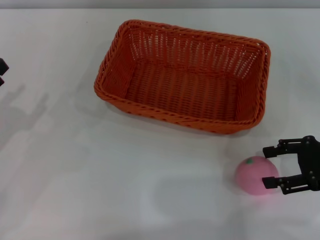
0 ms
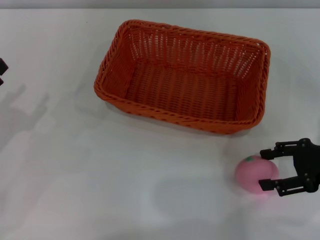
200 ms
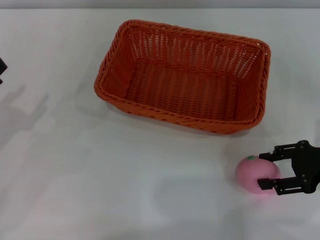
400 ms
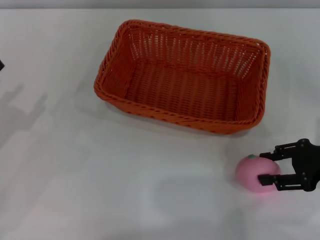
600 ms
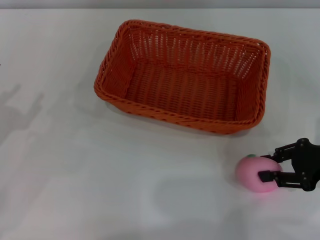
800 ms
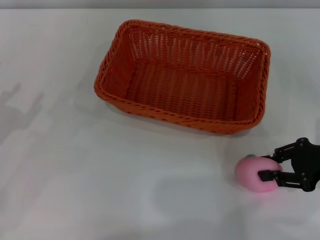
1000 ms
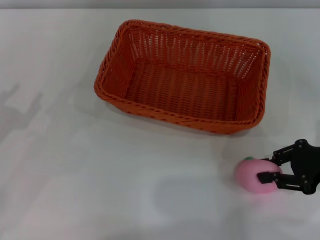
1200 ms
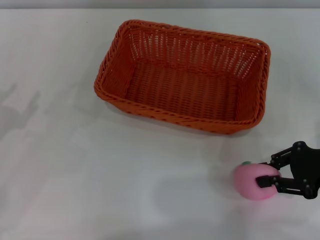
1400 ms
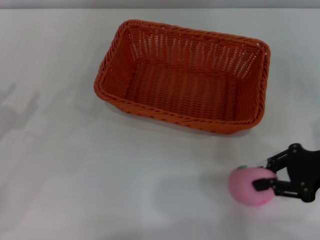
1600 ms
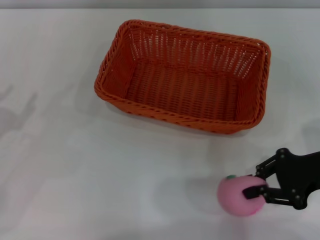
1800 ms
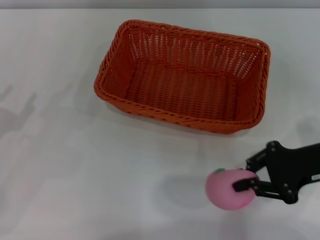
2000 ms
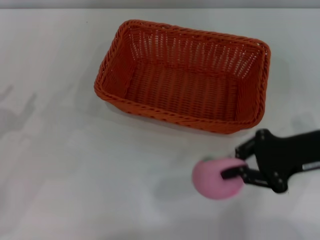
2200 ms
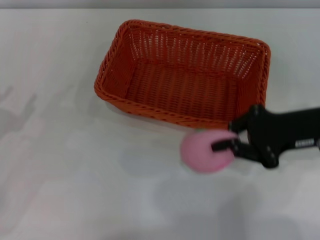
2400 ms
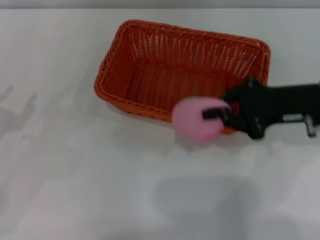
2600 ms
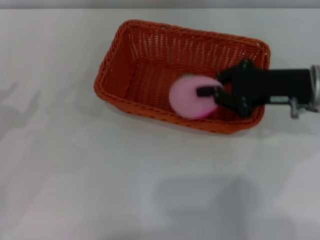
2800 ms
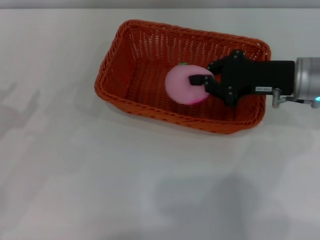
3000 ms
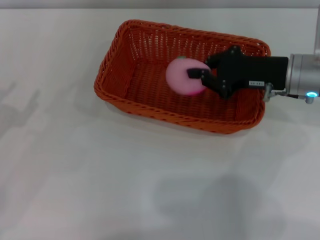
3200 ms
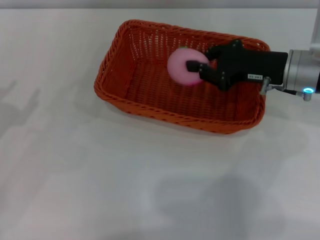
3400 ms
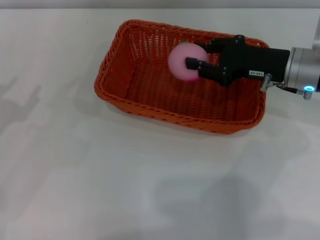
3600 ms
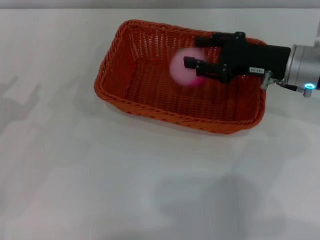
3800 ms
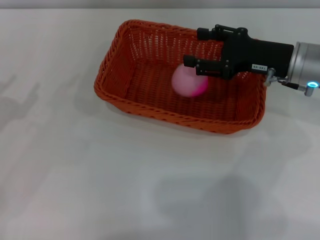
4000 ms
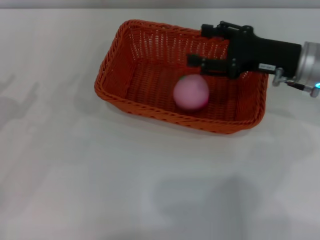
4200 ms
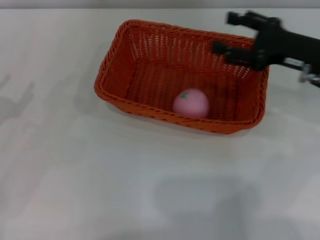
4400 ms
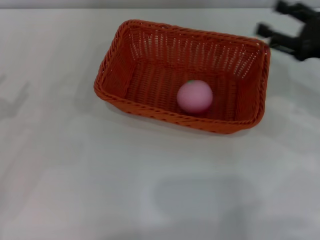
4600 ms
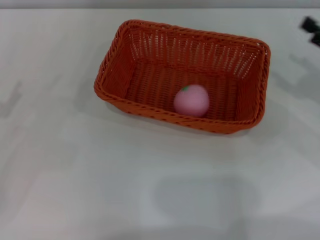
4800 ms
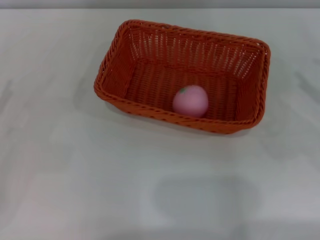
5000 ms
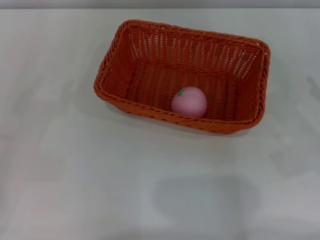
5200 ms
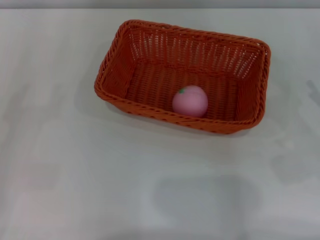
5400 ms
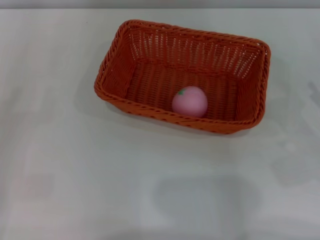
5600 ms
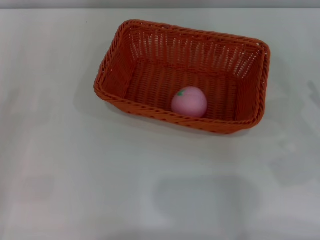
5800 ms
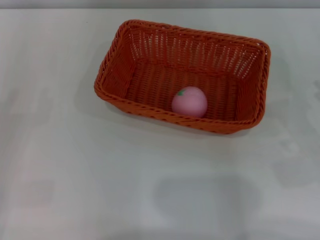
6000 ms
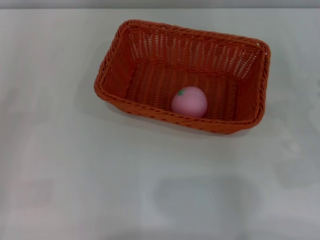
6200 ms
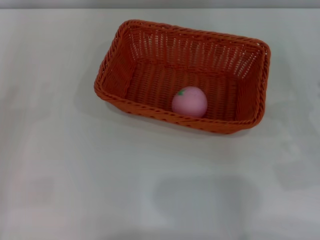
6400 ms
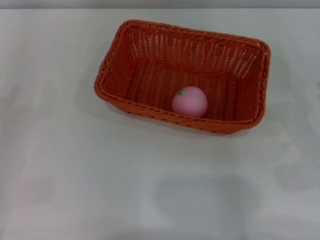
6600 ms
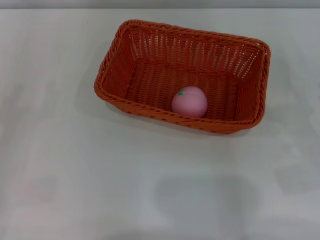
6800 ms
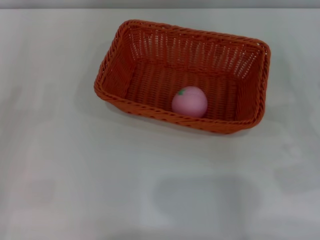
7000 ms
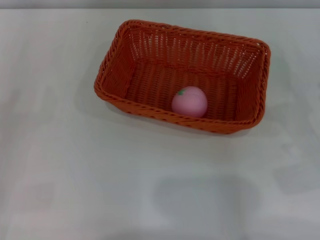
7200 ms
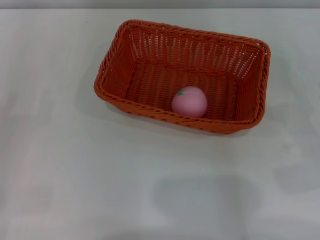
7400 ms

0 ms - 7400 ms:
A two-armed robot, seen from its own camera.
Step, 0 ms - 2200 ms: Pick up the peach with the left gripper.
Step, 2400 ms - 3800 ms: Place the peach into the basket with the left gripper.
0 ms - 1400 ms: The right gripper closes up.
1400 ms - 3000 ms: The right gripper goes some 15 cm forward and to the left.
3000 ms - 4400 ms: The right gripper opens.
4400 ms - 6000 ms: The right gripper shifts some 15 cm backward, to the right and downward.

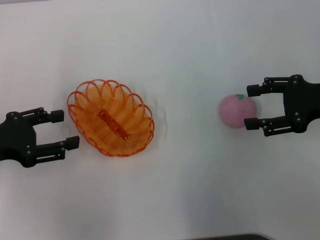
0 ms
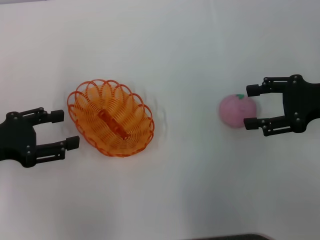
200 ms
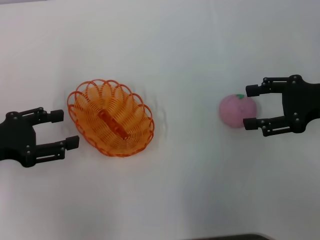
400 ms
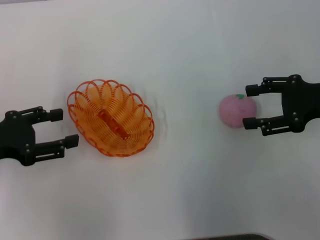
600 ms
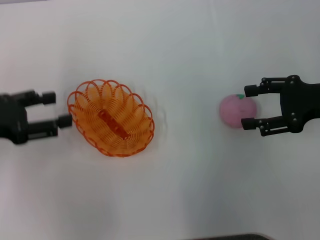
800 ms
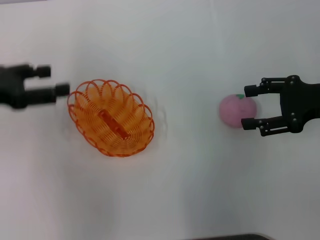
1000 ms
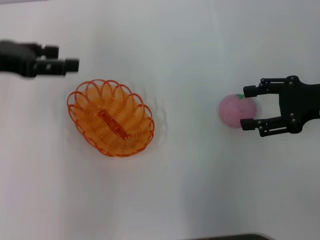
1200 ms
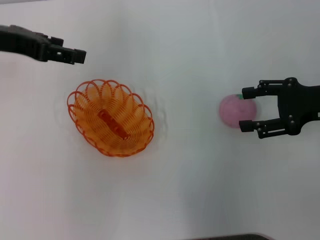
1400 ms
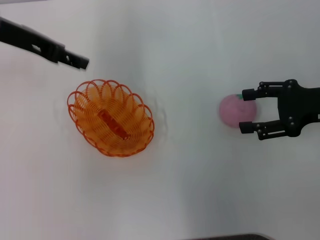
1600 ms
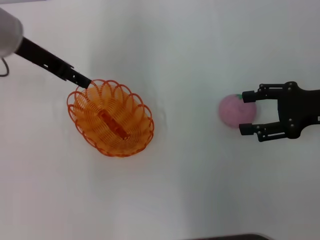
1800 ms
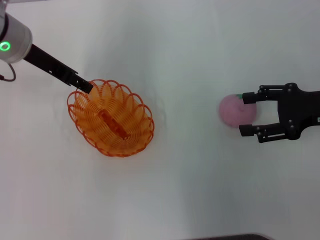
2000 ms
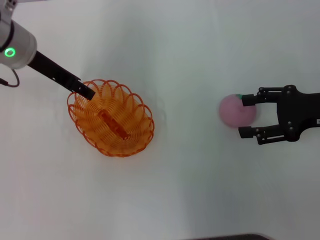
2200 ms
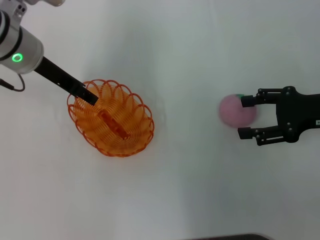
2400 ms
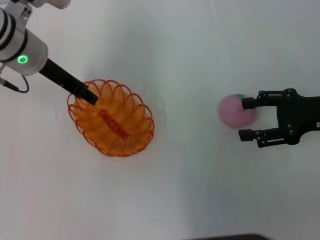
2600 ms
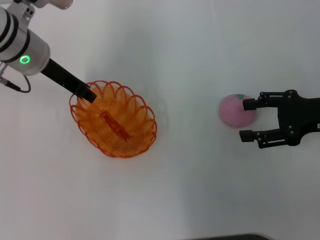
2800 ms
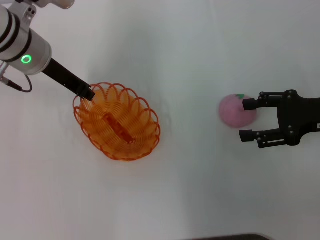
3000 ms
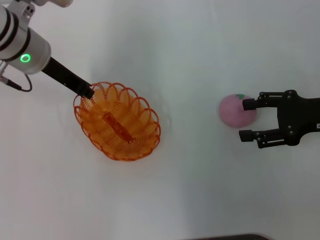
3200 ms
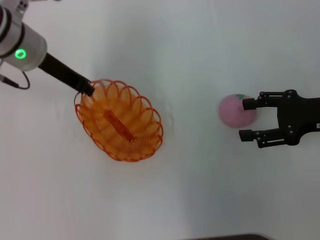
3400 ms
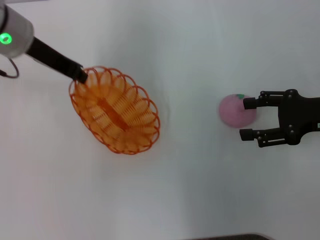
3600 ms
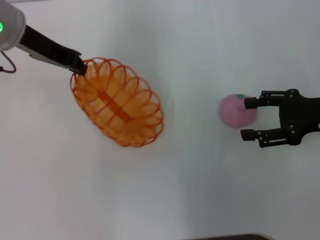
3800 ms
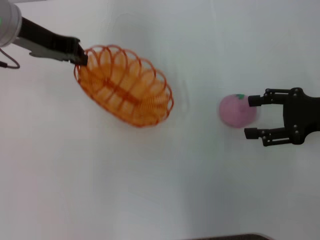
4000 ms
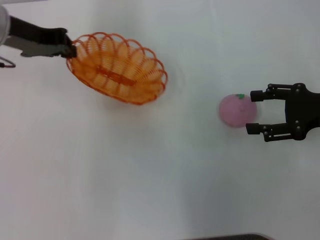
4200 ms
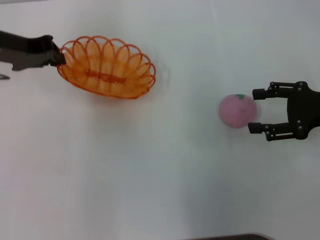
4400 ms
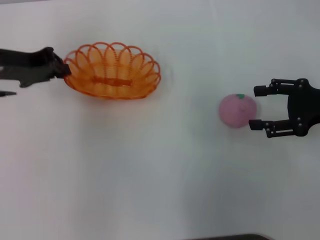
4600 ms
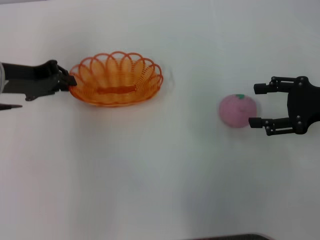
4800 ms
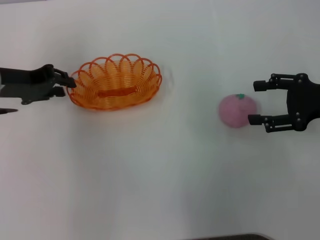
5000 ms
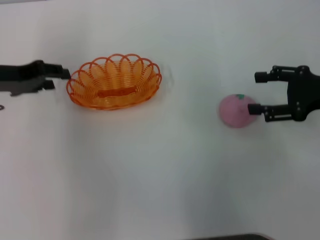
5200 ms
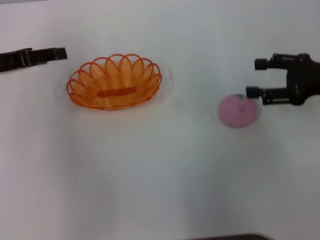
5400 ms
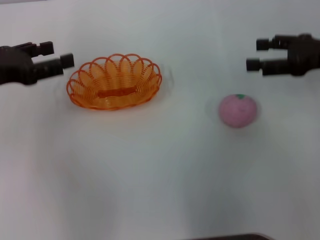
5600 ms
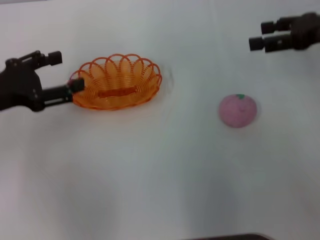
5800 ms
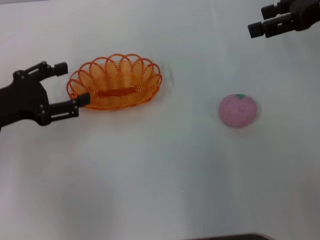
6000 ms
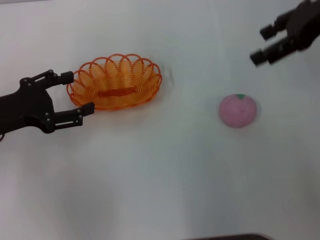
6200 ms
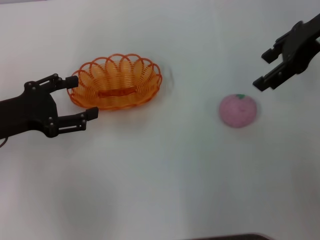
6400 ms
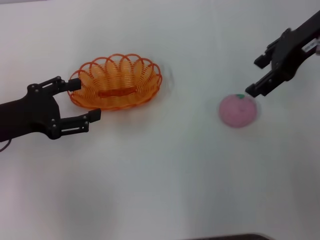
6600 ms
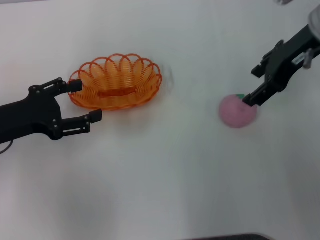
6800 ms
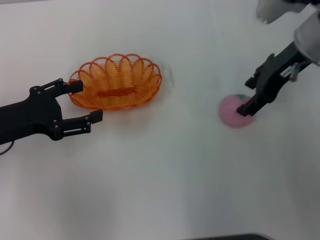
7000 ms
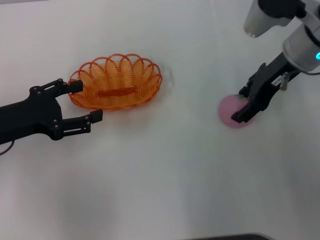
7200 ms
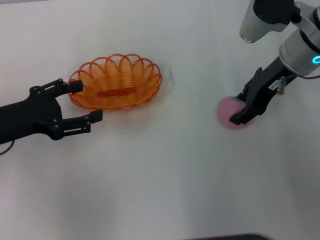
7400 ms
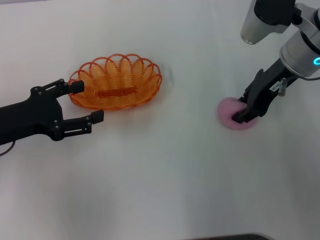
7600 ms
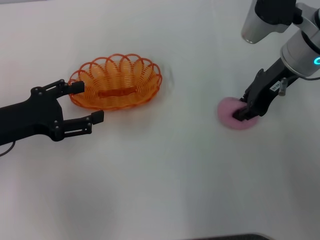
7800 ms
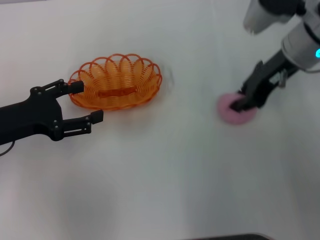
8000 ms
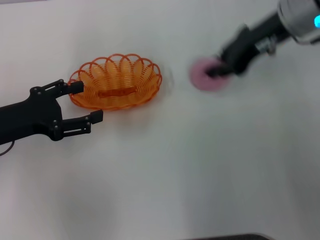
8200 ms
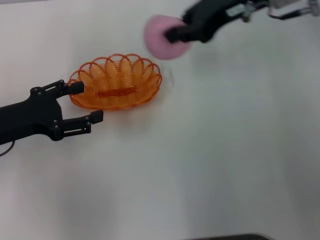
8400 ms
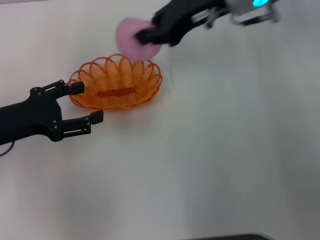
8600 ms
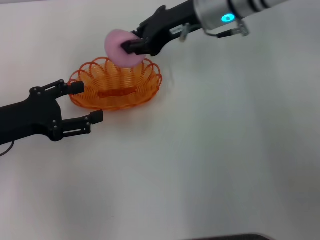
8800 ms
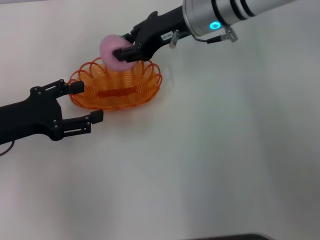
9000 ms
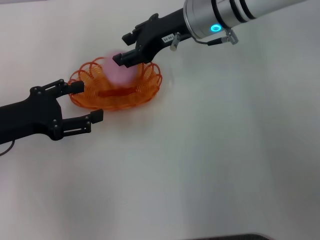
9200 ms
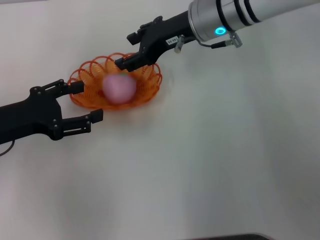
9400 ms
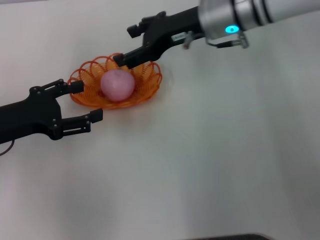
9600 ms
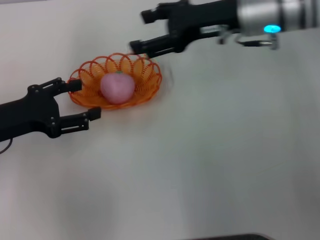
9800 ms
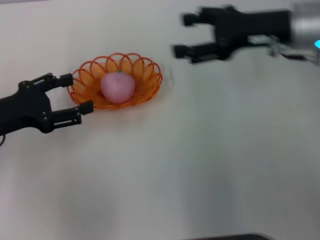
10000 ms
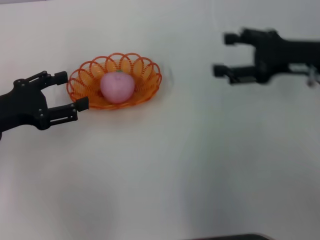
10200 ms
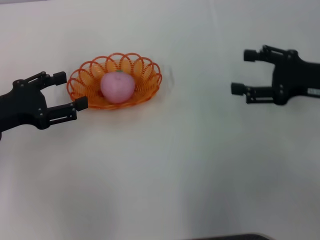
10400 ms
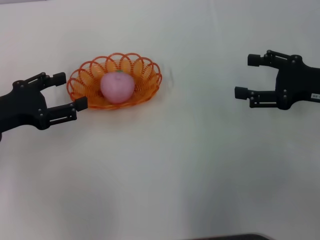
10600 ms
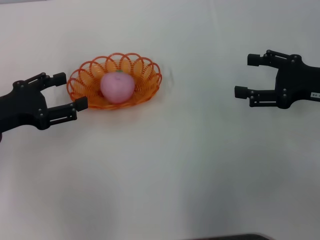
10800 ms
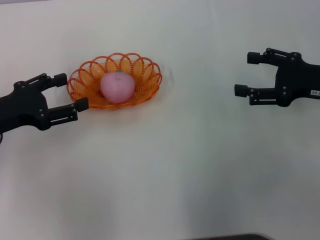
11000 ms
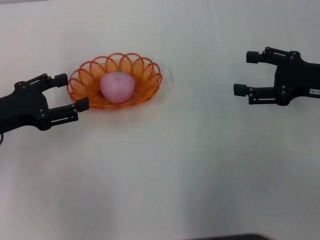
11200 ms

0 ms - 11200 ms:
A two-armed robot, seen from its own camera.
Step, 0 ms - 3400 ms: Pick up the basket with the left gripper.
Step, 3600 ms - 5200 ms: Place the basket in the center of view with the left gripper.
Step, 5400 ms - 8000 ms: Pick up the peach with the right gripper.
Step, 8200 ms - 9600 ms: Place the peach into the basket with the right gripper.
0 ms - 1600 ms: The left gripper moves forward, upward and to the right, approximately 20 cm.
1600 ms - 3200 ms: The left gripper travels downward by about 5 cm, and closes.
3200 ms - 4800 ms: The left gripper moves to the left, approximately 5 cm, and goes upward and returns, approximately 5 cm each way.
4800 ms - 6400 ms: The left gripper shifts about 10 cm backward, and opens up. The right gripper moves upward, forward and to the left, some 20 cm.
6400 ms - 8000 ms: The right gripper goes some 10 cm downward, and closes up.
8000 ms - 9600 ms: The right gripper shifts approximately 10 cm to the left, and opens.
9600 ms - 11200 ms: The right gripper is displaced to the right and backward by about 20 cm.

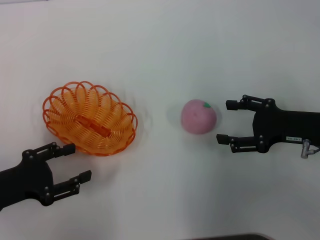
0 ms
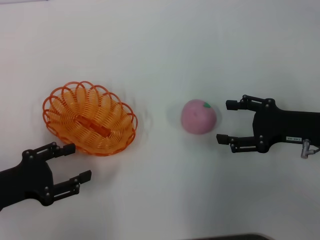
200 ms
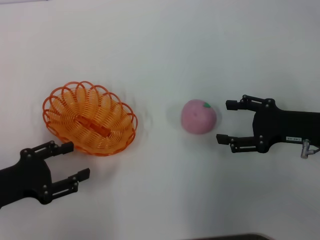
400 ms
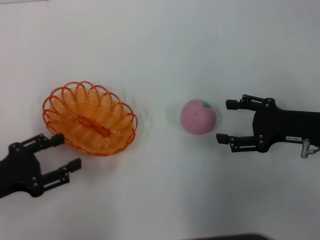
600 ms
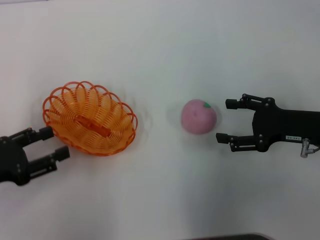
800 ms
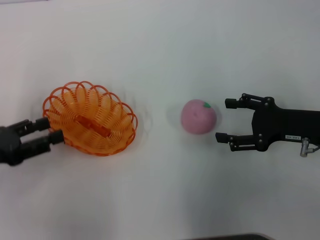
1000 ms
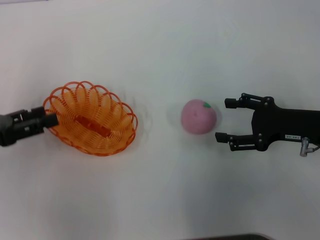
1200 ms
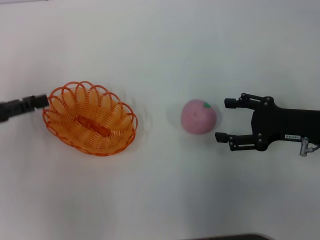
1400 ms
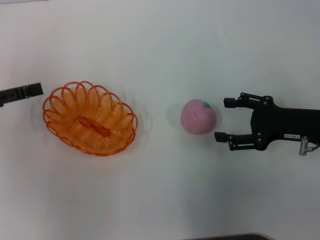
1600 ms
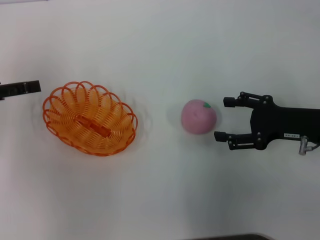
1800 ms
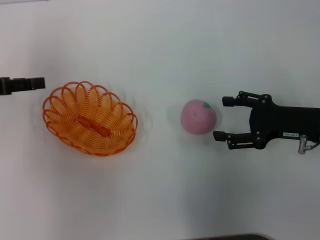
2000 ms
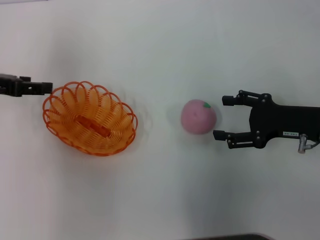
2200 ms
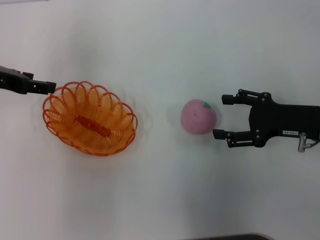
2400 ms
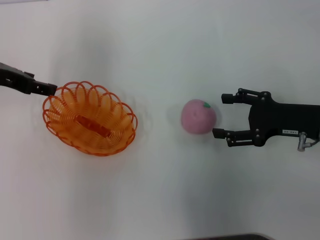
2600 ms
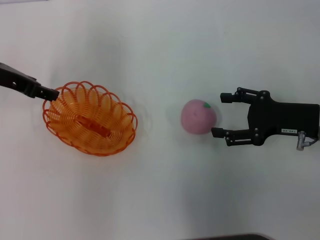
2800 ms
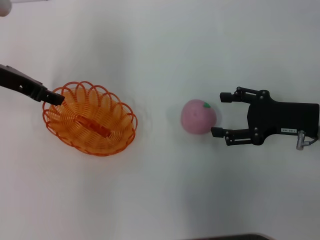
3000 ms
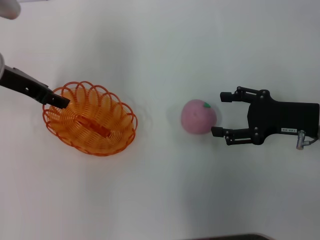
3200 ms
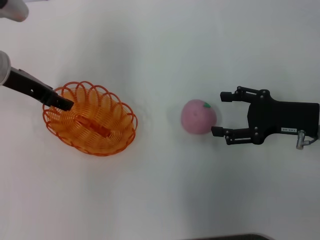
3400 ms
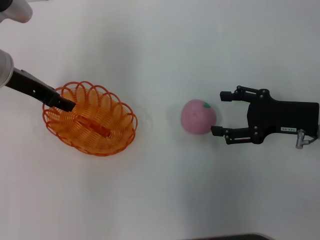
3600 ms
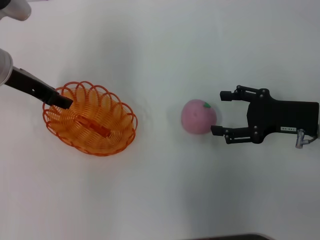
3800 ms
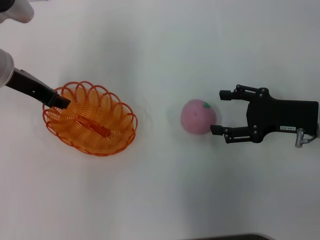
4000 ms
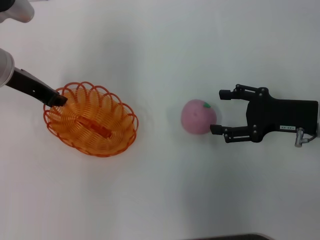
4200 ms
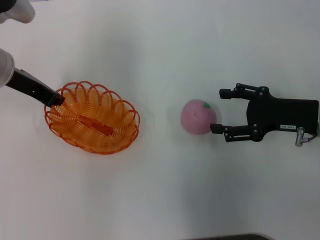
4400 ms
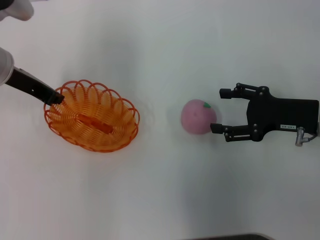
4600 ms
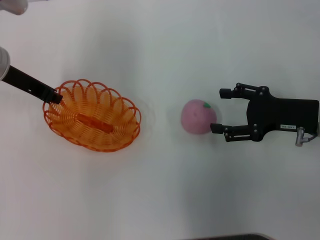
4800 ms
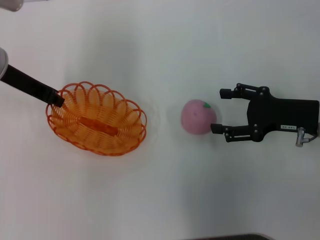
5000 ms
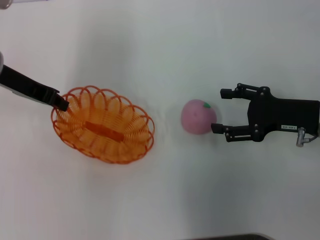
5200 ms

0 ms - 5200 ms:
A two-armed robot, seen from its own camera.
Step, 0 ms - 5200 ms: Pick up the basket with the left gripper.
0 ms - 1800 ms: The left gripper heads forward and upward, covering approximately 15 cm.
1800 ms - 3400 ms: The left gripper travels to the right and forward by roughly 15 cm.
3400 ms - 5200 ms: The left gripper closes.
